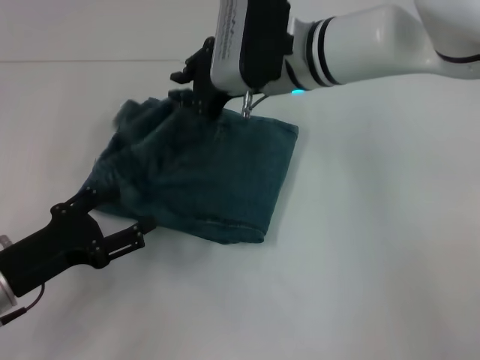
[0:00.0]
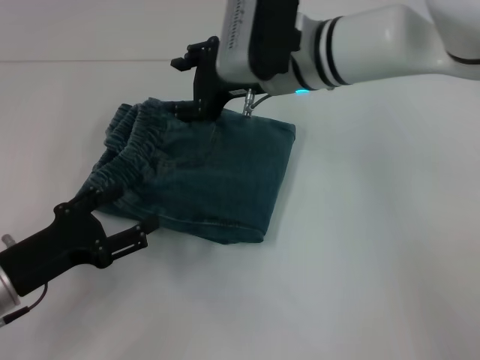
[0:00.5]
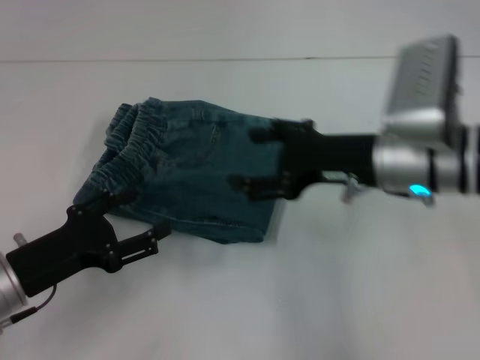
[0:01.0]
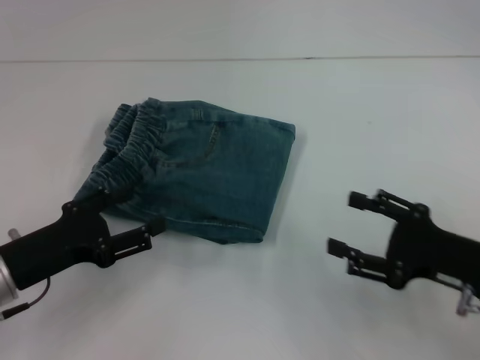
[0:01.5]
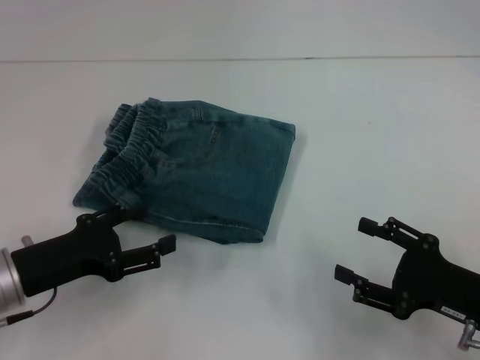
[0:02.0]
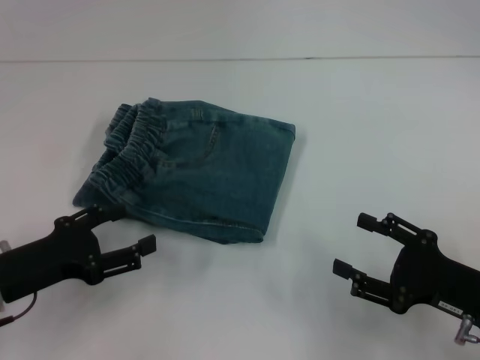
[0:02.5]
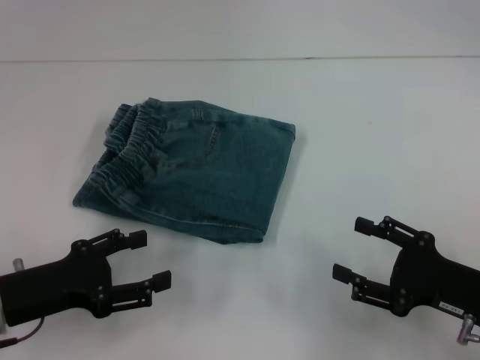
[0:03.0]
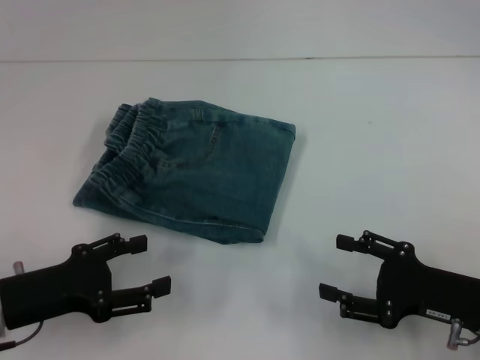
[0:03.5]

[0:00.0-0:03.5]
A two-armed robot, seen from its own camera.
0:00.0 to 0:02.0: The right gripper moves backward, to the right and downward, approximately 35 cm, and opens.
0:02.0 to 0:03.5: The grippers stay close to where they were, moving slightly.

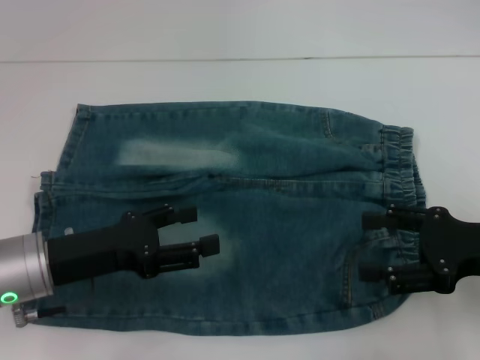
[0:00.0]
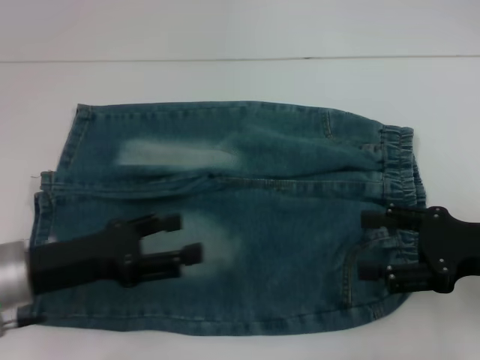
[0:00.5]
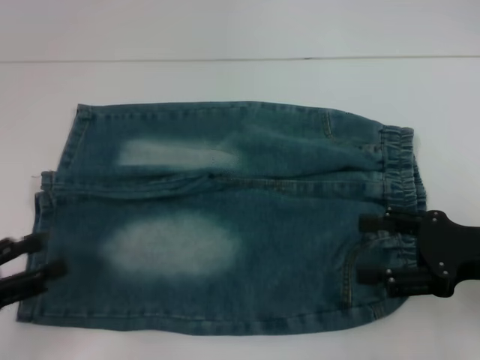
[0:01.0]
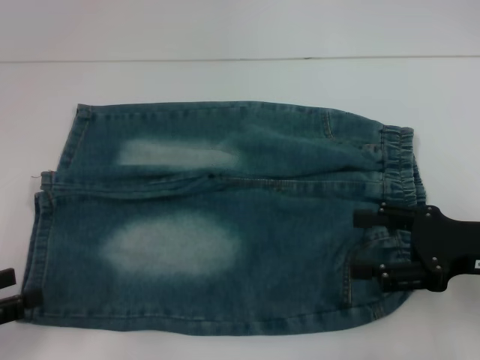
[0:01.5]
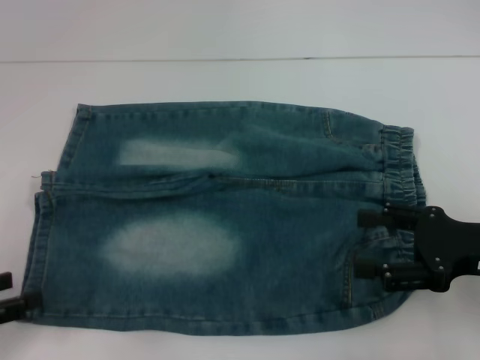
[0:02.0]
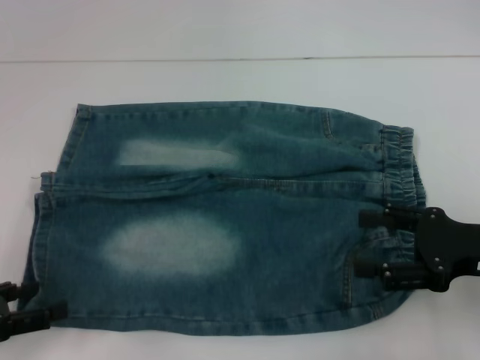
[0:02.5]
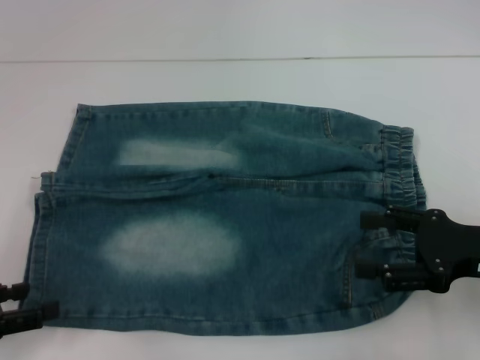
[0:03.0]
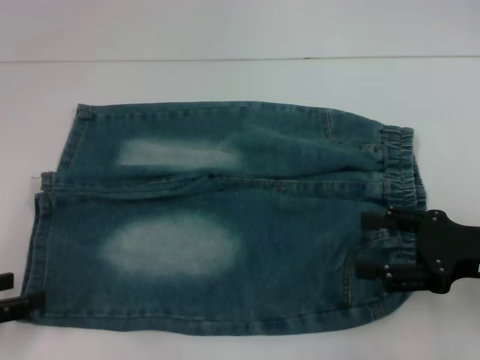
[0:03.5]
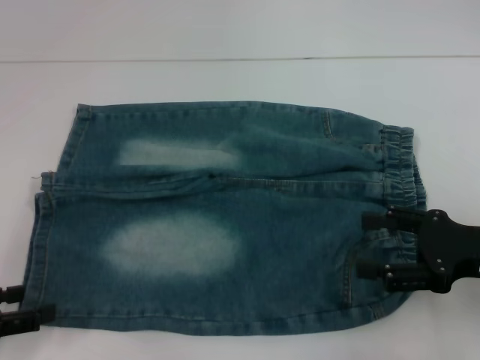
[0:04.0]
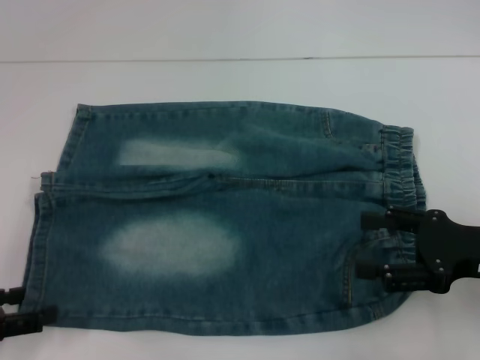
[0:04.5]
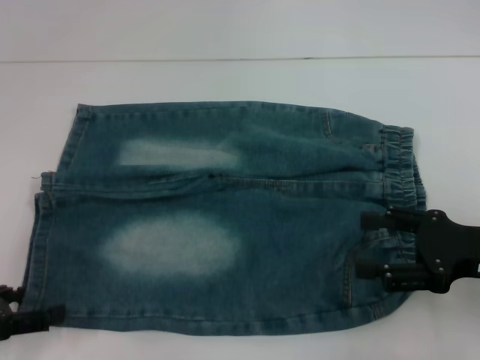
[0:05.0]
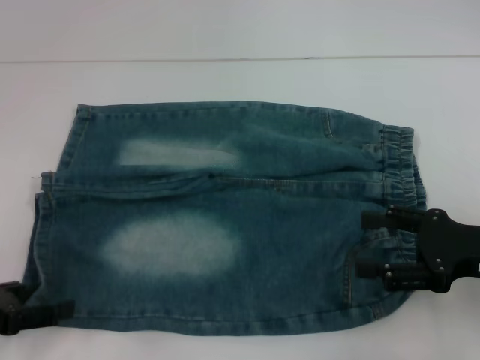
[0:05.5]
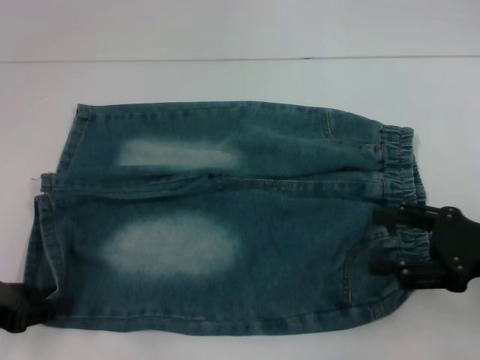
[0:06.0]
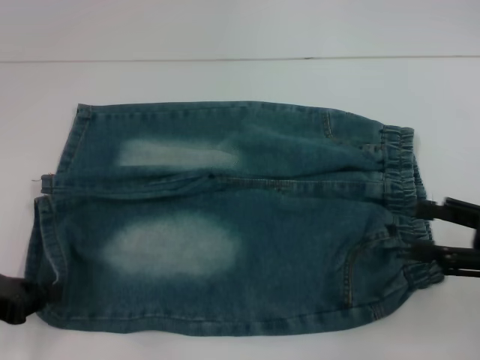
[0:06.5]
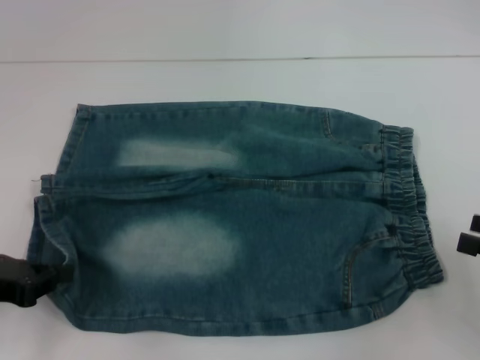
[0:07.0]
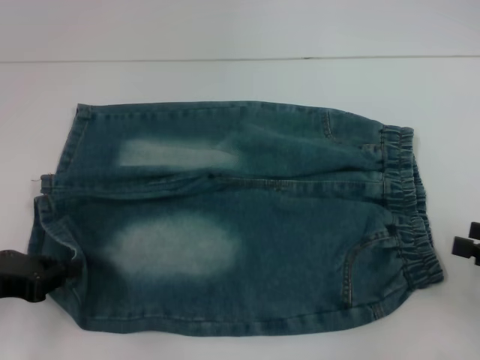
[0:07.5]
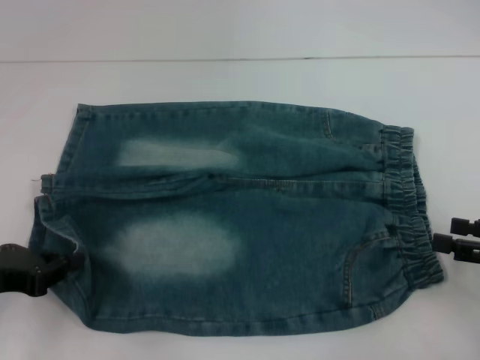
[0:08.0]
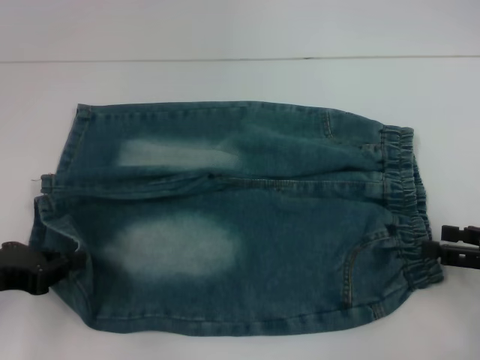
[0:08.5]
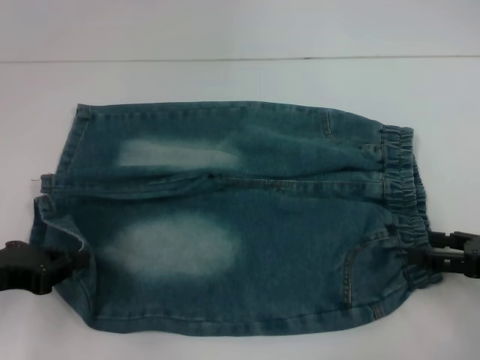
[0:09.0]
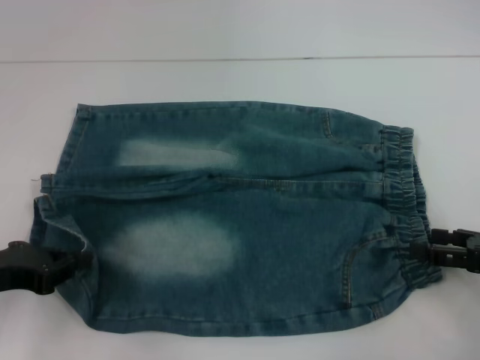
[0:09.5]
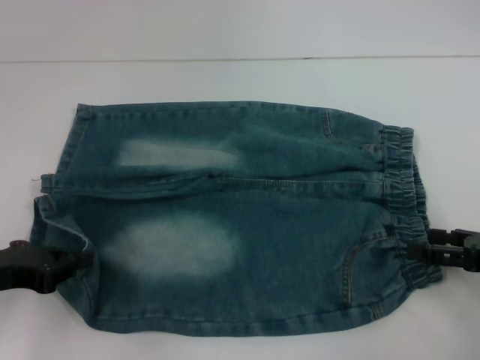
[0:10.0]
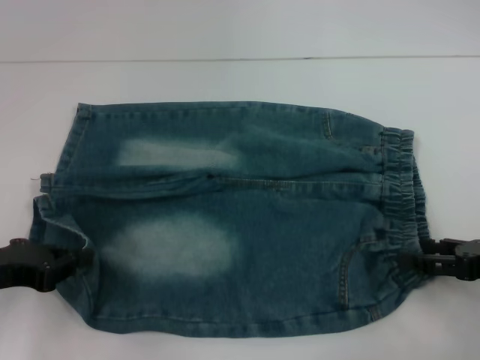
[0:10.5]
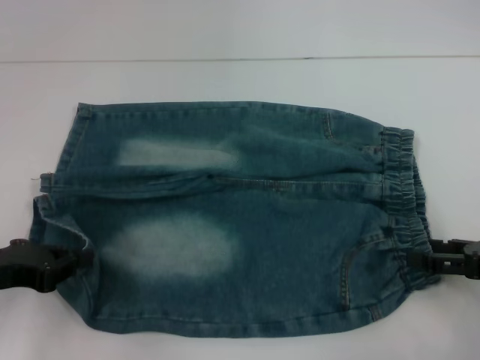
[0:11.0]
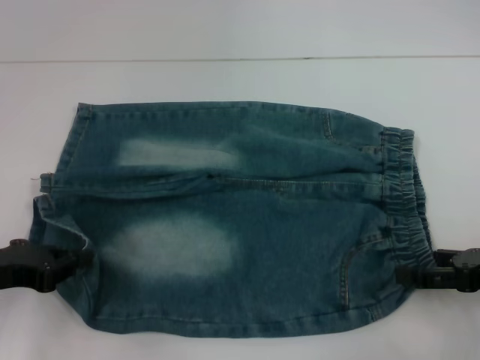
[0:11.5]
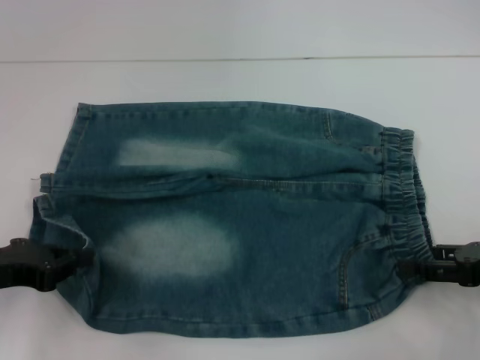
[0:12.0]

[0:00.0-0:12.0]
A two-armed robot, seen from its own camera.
Step, 0:00.0 to 0:06.5: Grab the lower left pant leg with your left hand.
0:00.0 to 0:02.0: The left gripper heads to the left and backward, covering about 15 cm.
0:02.0 to 0:06.0: The grippers make only small movements.
0:06.0 to 0:08.0: The right gripper travels to the right by roughly 5 cm, while the left gripper closes up.
0:08.0 to 0:12.0: The grippers make only small movements.

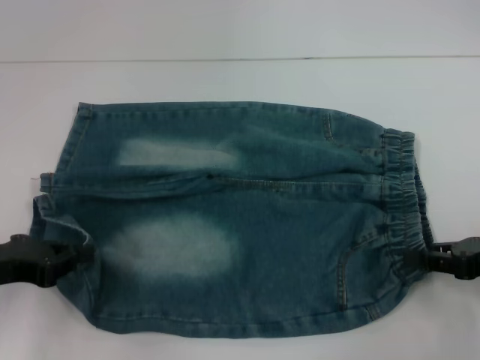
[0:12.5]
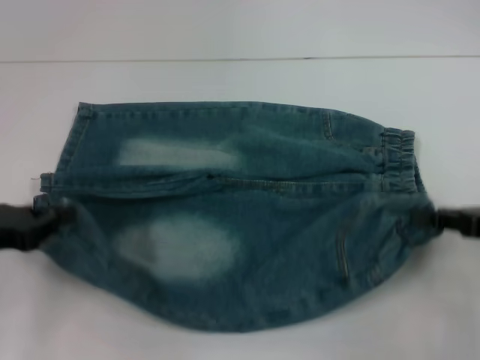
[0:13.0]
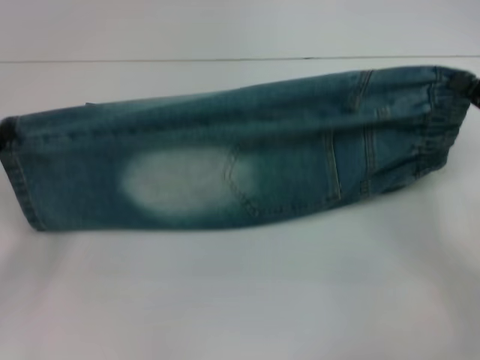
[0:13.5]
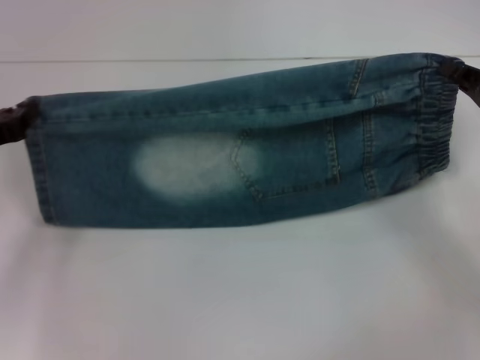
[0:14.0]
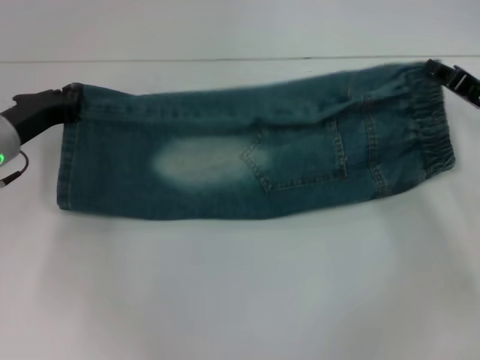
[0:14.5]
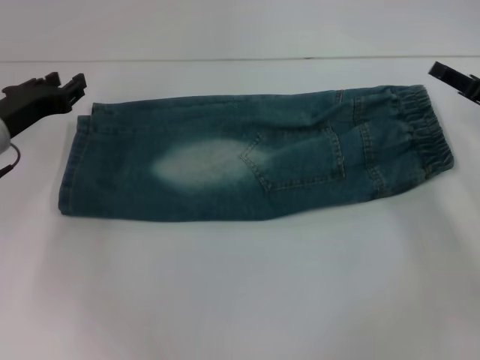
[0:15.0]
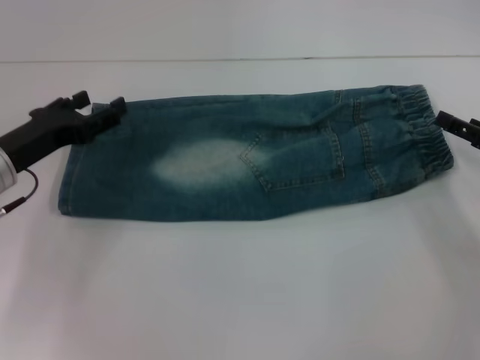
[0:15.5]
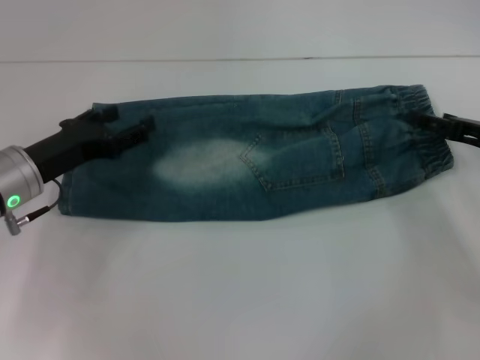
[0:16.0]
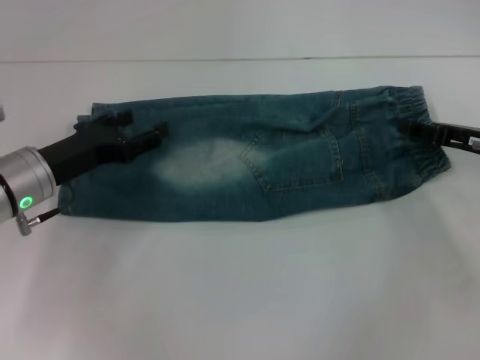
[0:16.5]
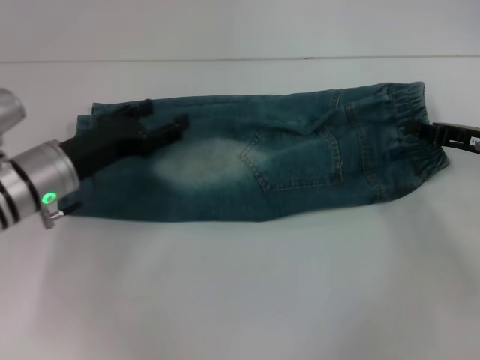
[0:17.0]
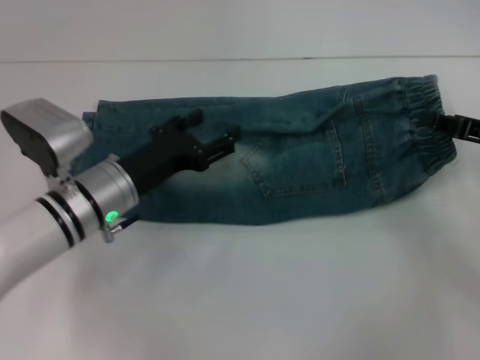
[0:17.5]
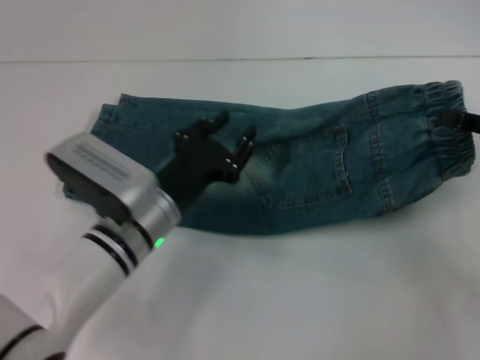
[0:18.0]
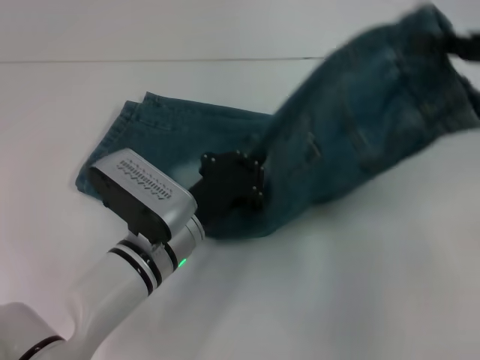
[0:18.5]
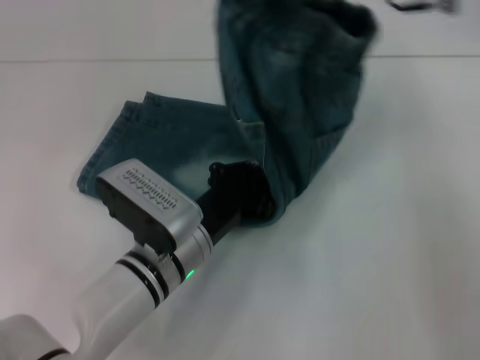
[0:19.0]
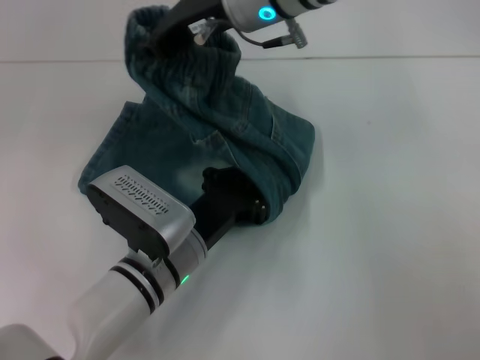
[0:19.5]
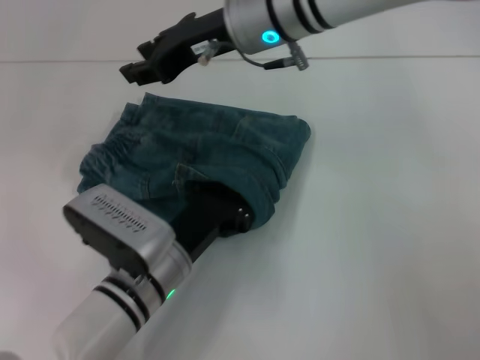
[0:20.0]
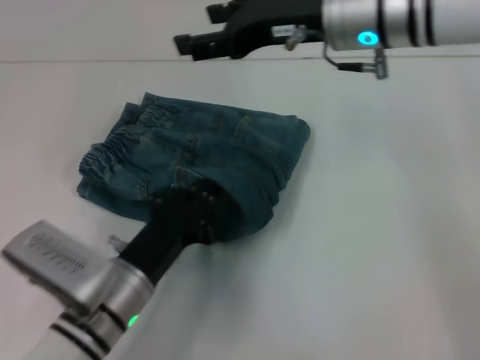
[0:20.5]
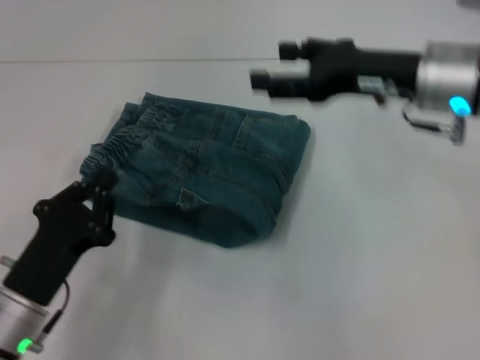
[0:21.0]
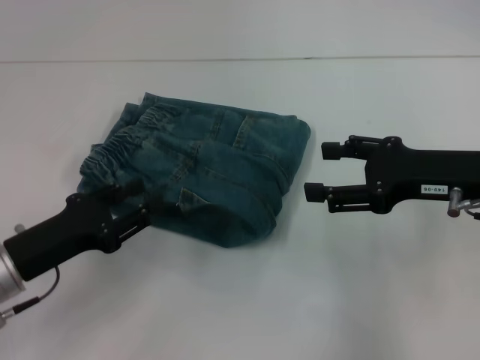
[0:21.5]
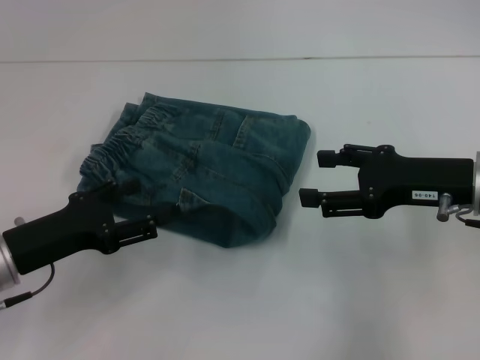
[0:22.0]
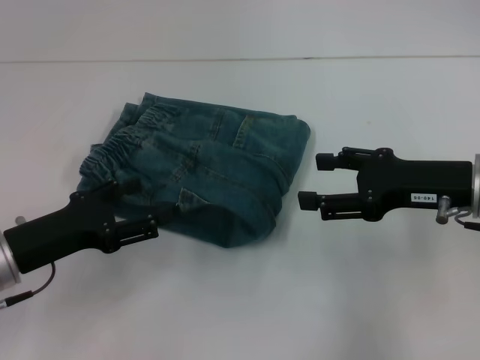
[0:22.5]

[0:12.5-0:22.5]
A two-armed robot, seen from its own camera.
Step, 0:13.0 to 0:14.5: Fold upward with your right hand.
Step, 0:15.0 to 0:17.0: Grab the waistband with your right hand.
Step, 0:17.5 to 0:20.0: Fold to the left with your right hand.
0:12.5 to 0:14.5: Both grippers travel together forward, about 10 cm.
0:14.5 to 0:16.5: The right gripper opens. The left gripper changes place by roughly 5 cm, and opens.
0:16.5 to 0:18.5: The right gripper is displaced upward by about 15 cm, and closes up; the left gripper is displaced to the right by approximately 15 cm, and closes up.
0:18.5 to 0:20.5: The left gripper shifts some 5 cm backward; the right gripper moves to the left, some 20 cm, and opens.
0:20.5 to 0:22.5: The left gripper moves to the left and upward, some 15 cm, and opens. Meanwhile the right gripper shifts about 20 cm to the right, backward and downward.
